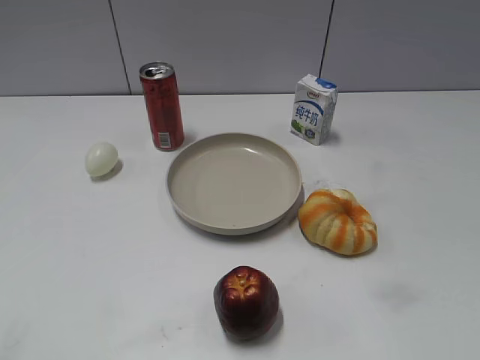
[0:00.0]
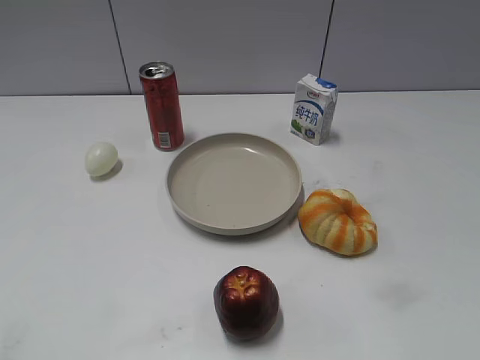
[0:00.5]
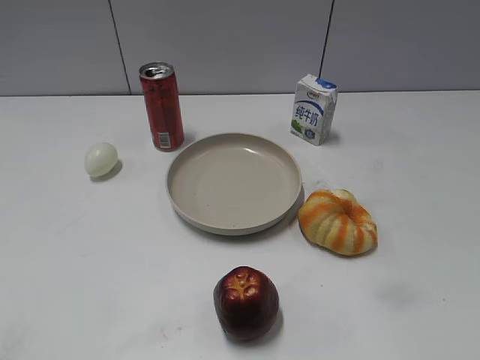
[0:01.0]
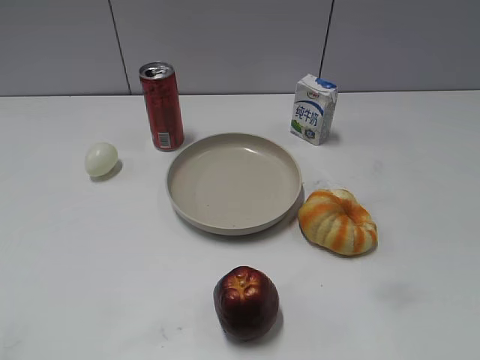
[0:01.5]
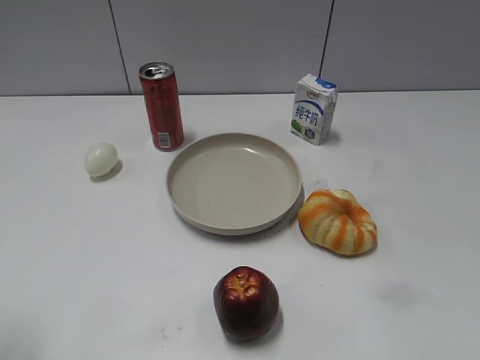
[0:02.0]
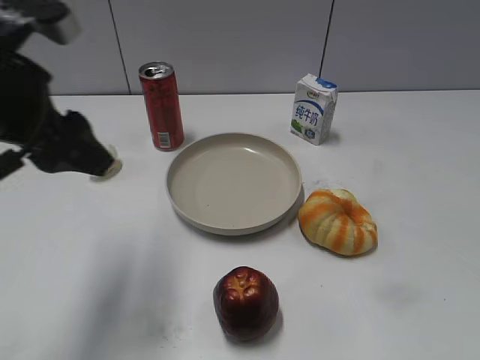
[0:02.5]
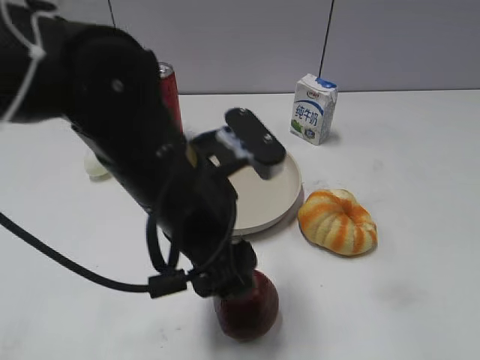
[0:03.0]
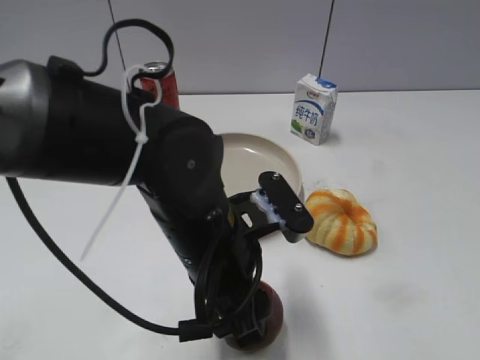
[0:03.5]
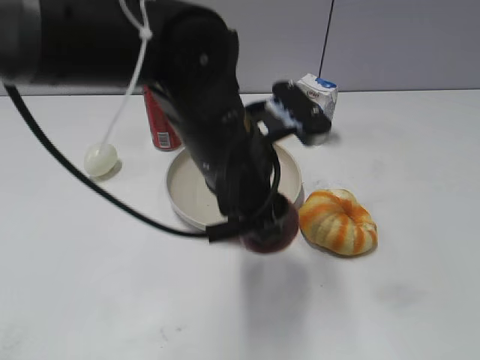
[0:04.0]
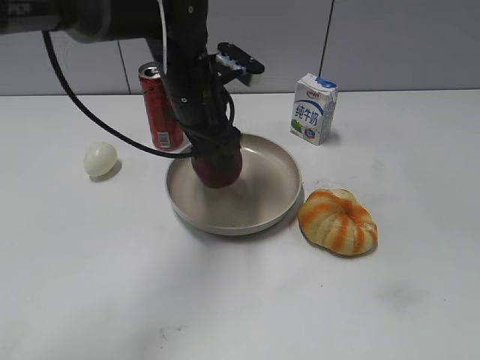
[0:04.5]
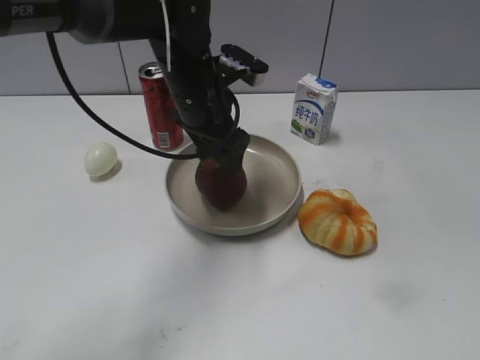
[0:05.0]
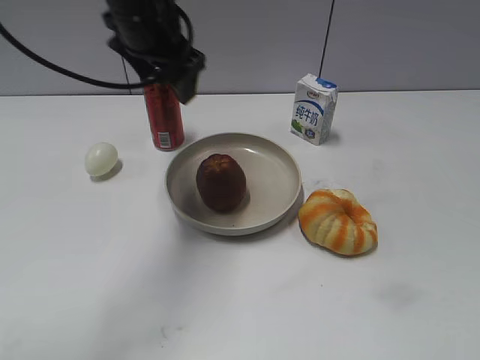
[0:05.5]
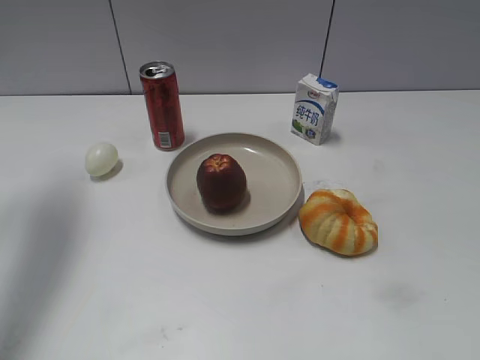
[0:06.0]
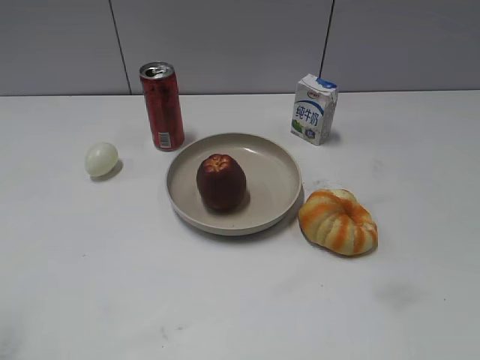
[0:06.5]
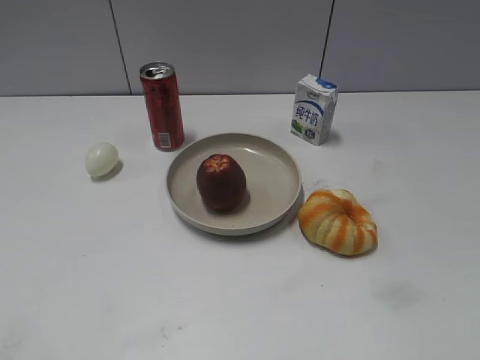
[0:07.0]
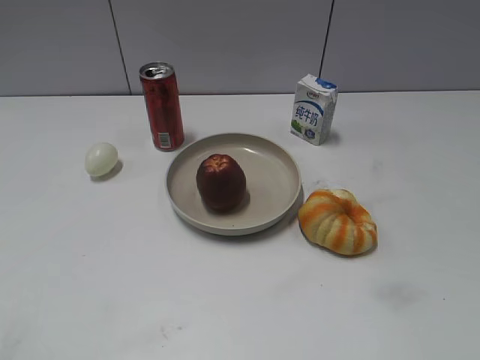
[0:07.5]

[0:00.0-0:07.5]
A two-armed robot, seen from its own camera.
Step, 0:02.5 to 0:03.5: Grasp the apple with left gripper.
Step, 0:04.0 to 0:05.0: Place the apple on the plate with left gripper.
0:02.0 to 0:04.0: The left gripper heads to the right and forward, covering some 30 cm, and opens, then closes again.
0:04.0 to 0:05.5: The left gripper goes roughly 20 cm forward, to the left and upward, and opens its fingers.
0:05.5 to 0:07.5: The left gripper is displaced backward and to the left by about 40 cm, and closes.

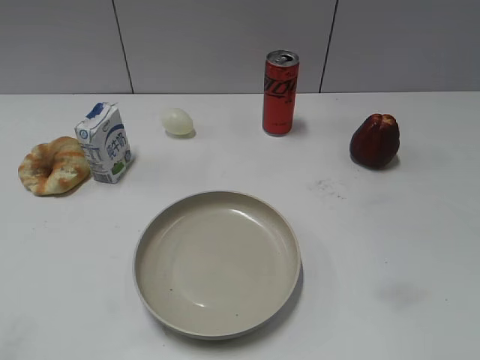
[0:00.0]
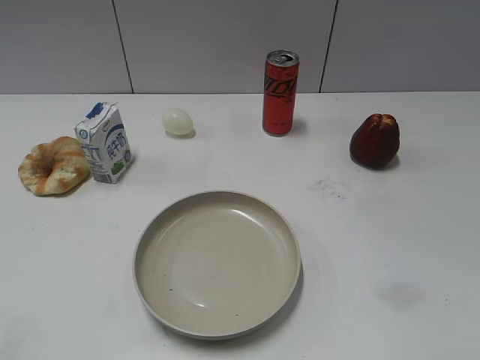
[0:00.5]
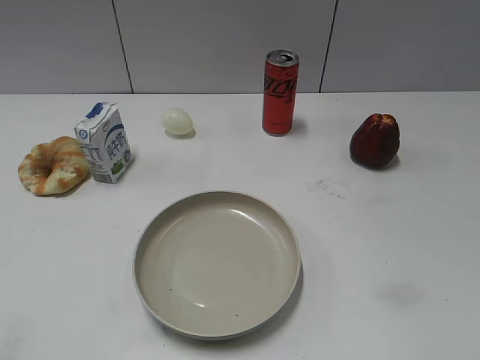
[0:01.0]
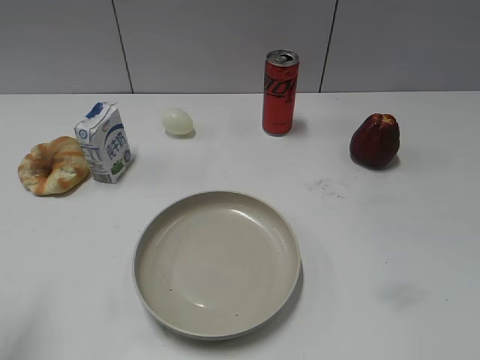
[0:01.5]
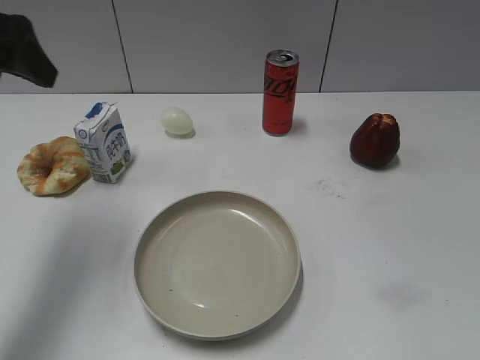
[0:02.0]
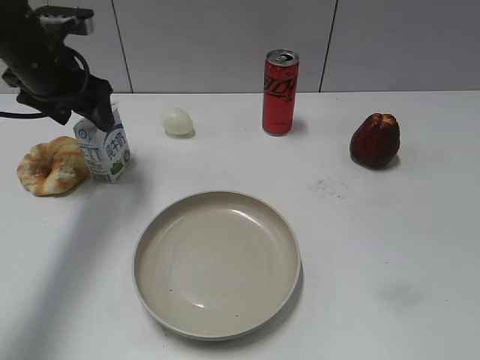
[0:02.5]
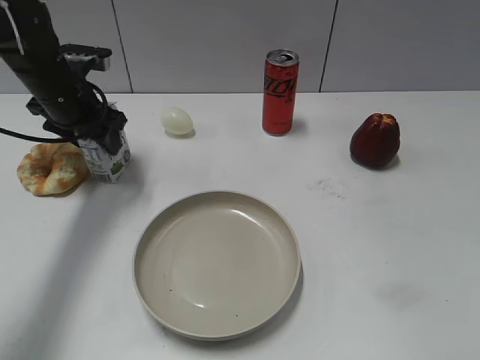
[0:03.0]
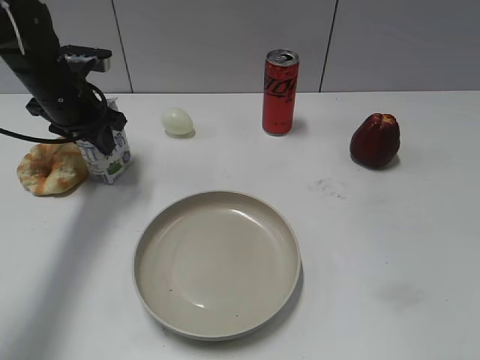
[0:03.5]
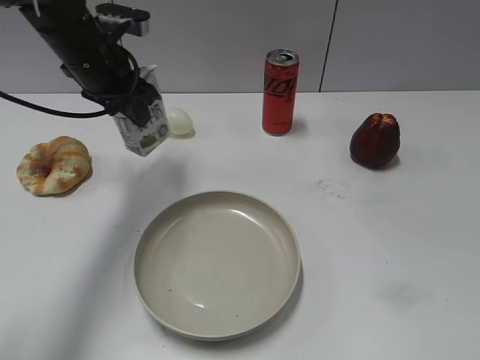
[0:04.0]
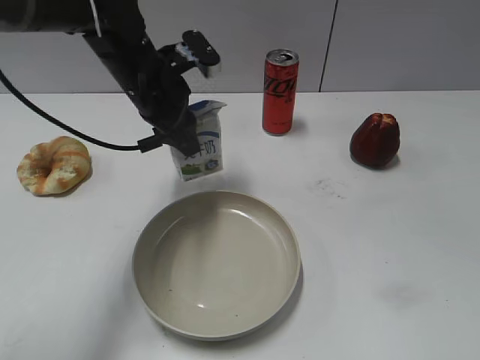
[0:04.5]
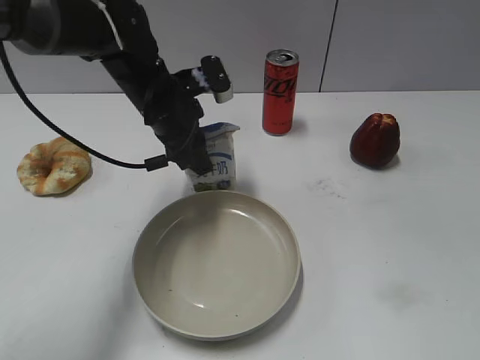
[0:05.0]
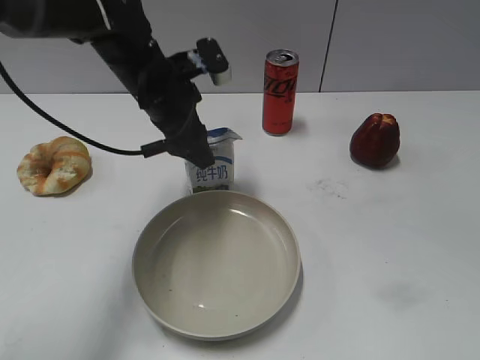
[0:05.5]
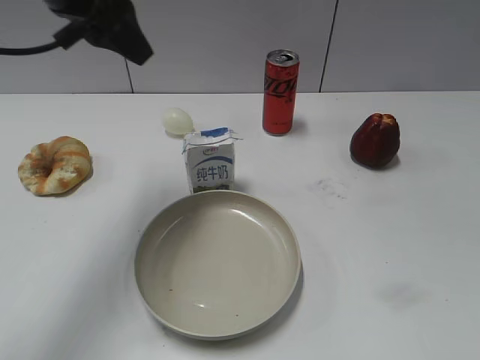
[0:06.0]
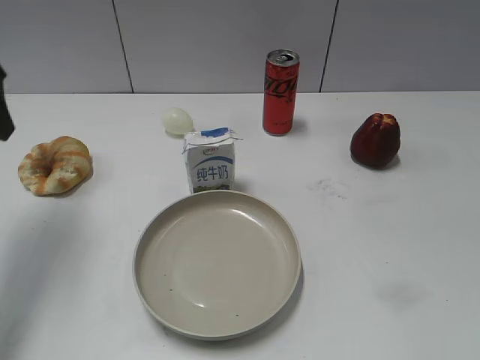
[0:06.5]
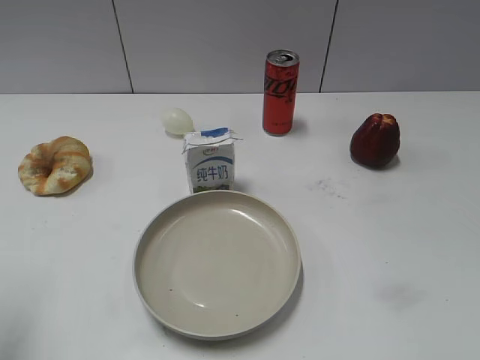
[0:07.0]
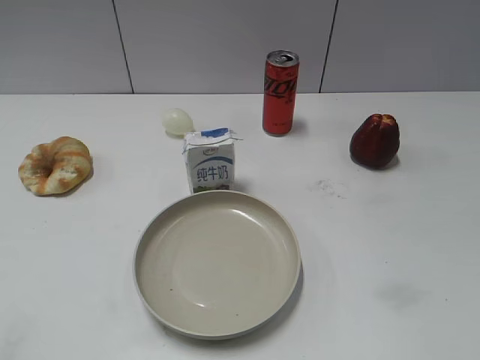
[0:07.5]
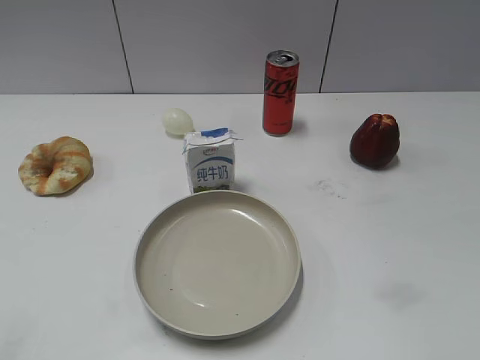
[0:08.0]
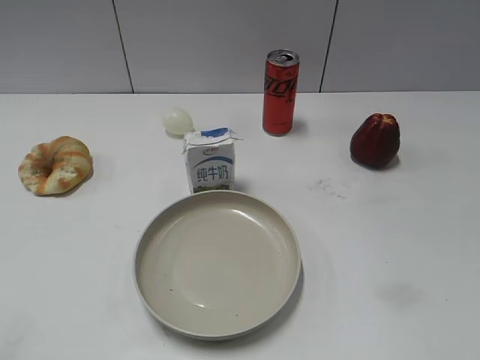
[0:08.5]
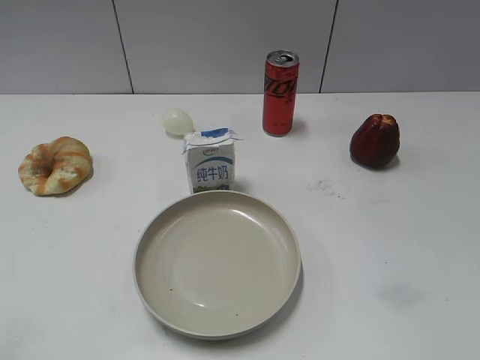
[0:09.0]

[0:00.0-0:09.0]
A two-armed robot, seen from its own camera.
Step, 0:01.0 to 0:03.0: Grasp the milk with left gripper.
Step, 0:03.5 to 0:05.5: Place the milk on the table with left gripper.
0:02.0 to 0:04.5: The left gripper is displaced to the right, downward and forward by some 20 cm, and closes up.
0:04.5 to 0:07.0: The left gripper travels backward and to the left by roughly 30 cm, and opens its fingers.
